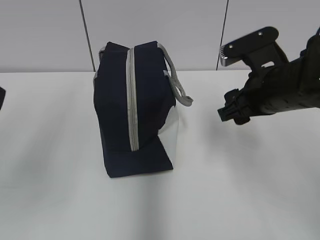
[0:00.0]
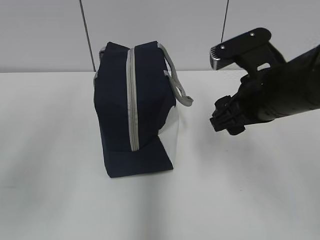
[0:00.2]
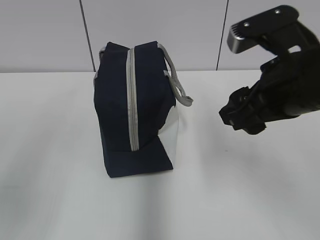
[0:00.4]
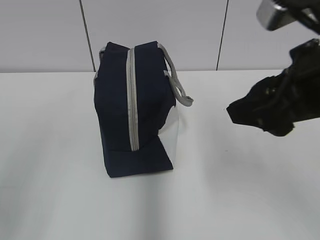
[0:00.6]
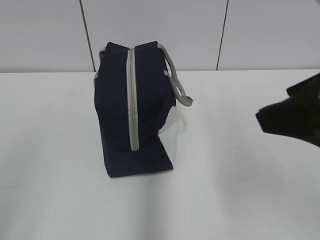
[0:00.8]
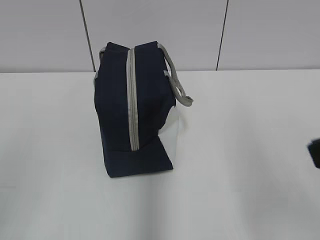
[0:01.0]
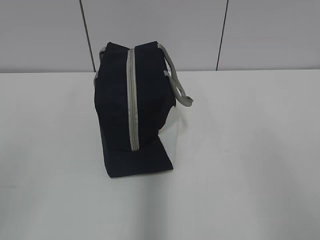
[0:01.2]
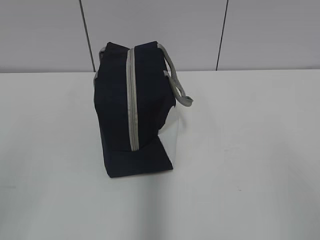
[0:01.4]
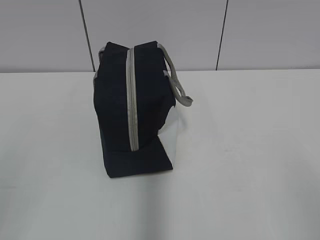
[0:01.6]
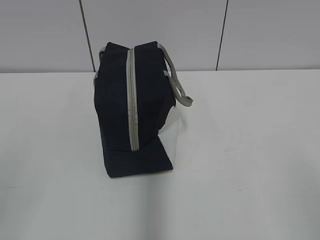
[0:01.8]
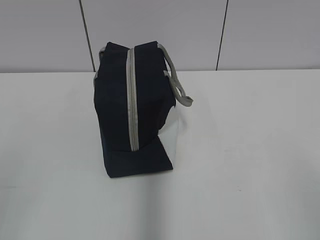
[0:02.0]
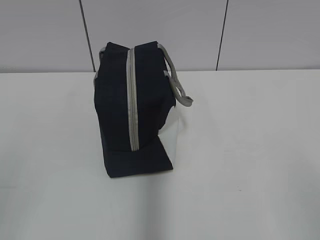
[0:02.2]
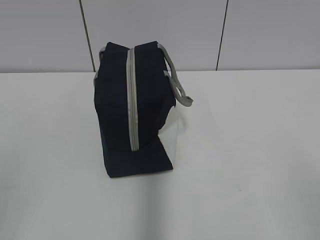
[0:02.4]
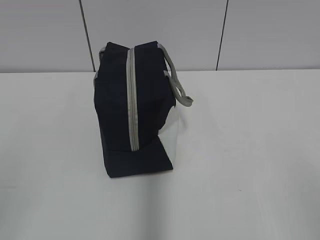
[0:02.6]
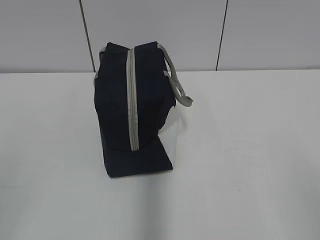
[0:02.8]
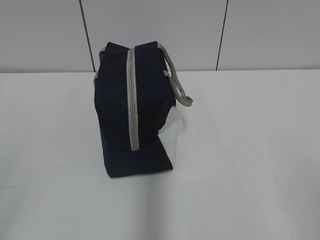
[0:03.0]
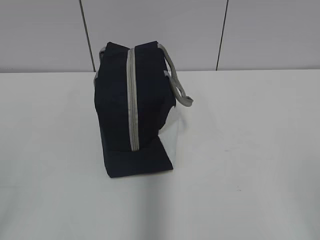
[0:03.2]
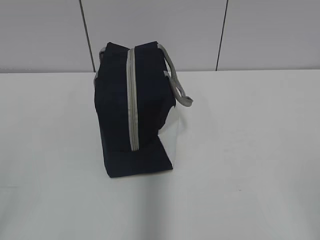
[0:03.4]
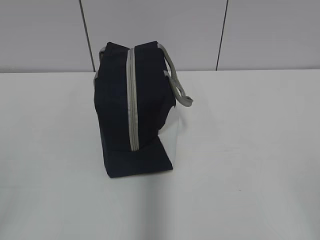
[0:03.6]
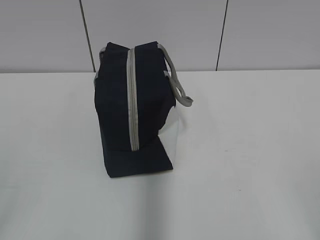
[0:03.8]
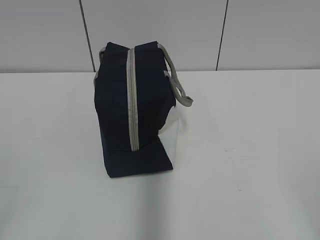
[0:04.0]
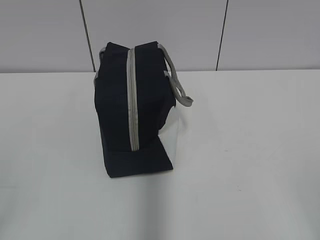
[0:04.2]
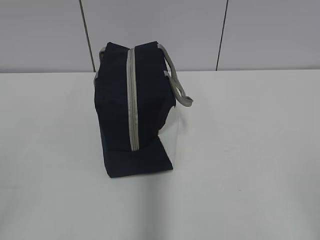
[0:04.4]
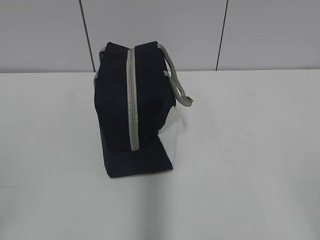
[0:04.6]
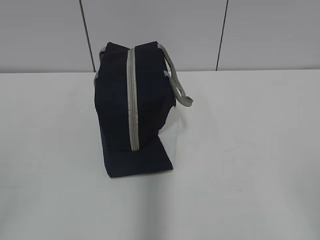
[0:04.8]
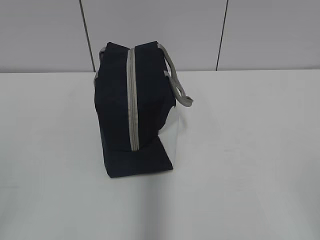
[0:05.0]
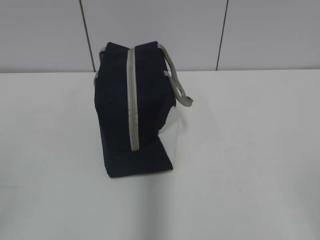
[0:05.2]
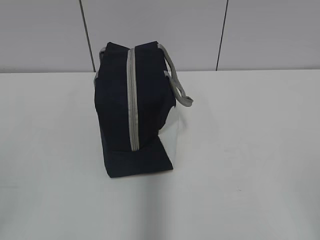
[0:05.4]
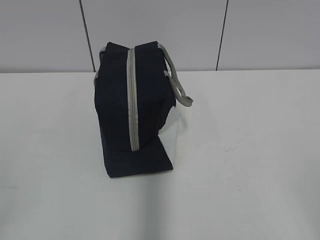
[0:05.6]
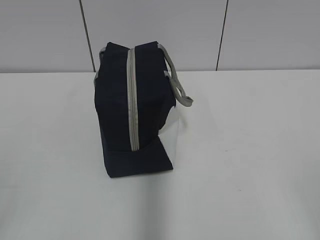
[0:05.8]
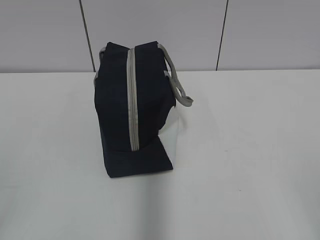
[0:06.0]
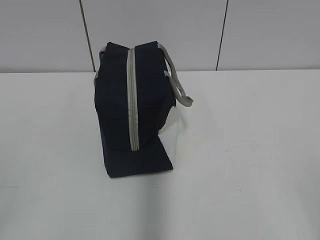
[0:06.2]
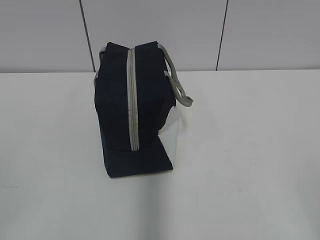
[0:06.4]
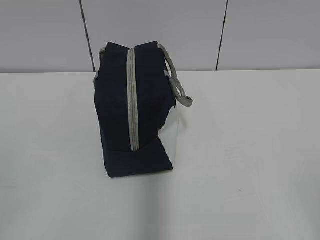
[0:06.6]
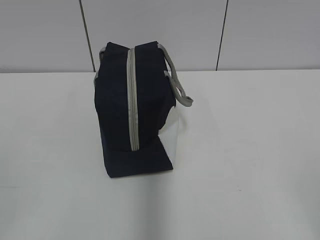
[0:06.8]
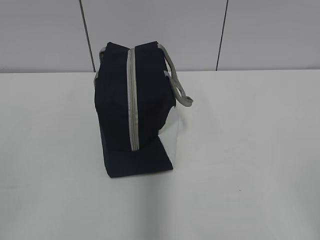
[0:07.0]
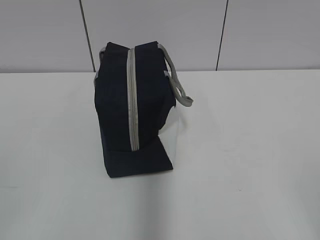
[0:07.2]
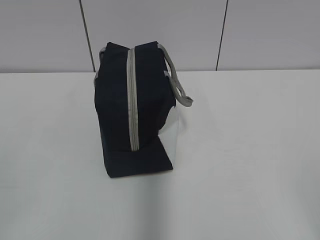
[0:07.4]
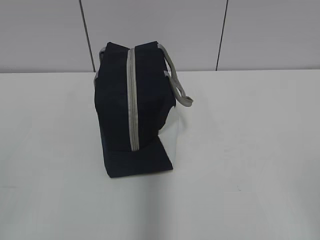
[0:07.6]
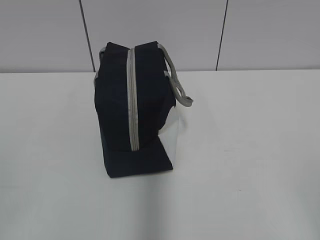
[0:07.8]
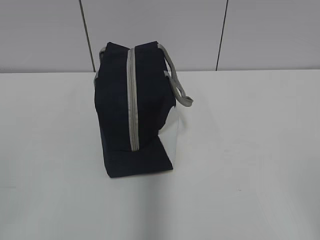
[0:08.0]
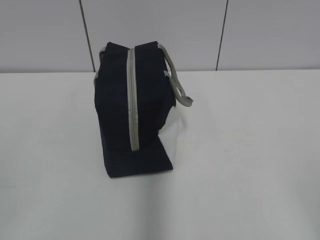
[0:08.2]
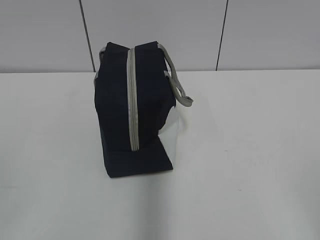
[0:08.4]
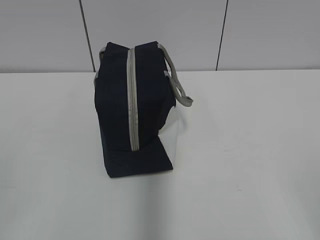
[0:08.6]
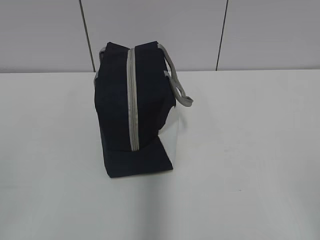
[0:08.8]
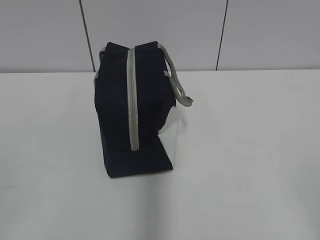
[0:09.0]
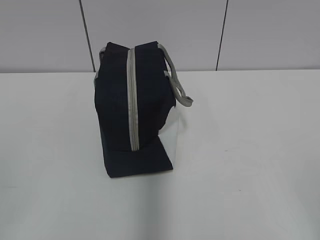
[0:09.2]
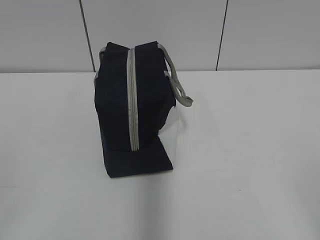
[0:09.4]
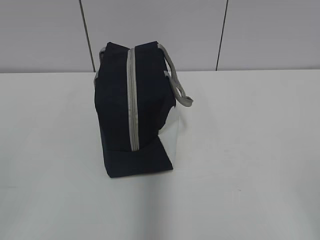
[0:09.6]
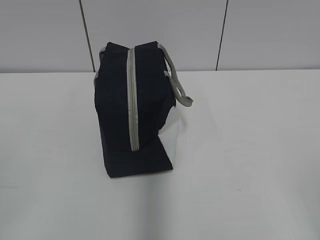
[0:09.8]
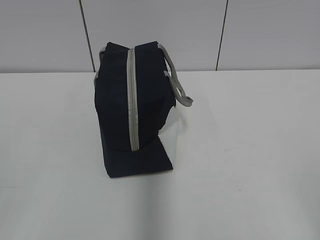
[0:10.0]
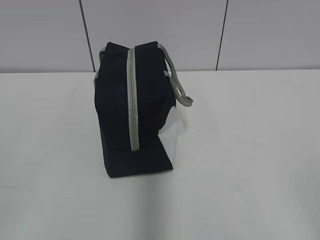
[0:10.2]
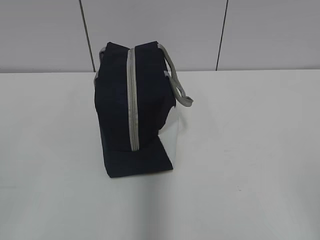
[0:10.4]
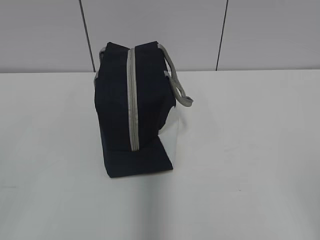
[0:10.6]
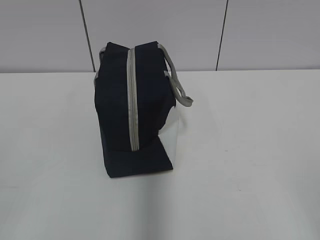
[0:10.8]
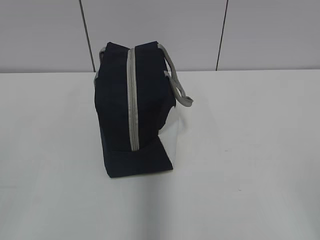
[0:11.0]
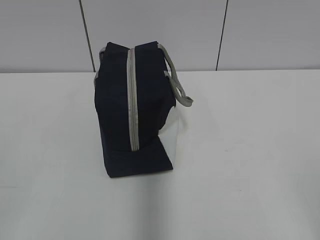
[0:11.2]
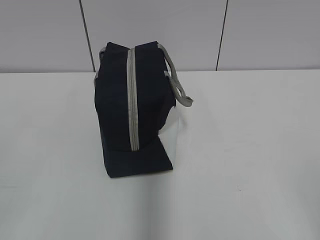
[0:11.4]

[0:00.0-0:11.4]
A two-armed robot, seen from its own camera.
0:00.0 to 0:01.4: The right gripper is displaced backward by roughly 30 cm. Meanwhile the left gripper travels backward and downward by some 15 cm.
0:04.2 to 0:07.2: The two grippers keep their place.
0:07.2 to 0:08.6: Both grippers stay put.
0:10.0 to 0:11.4: The two grippers keep their place.
